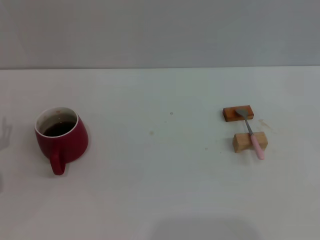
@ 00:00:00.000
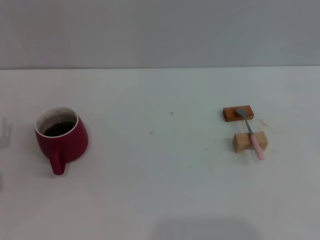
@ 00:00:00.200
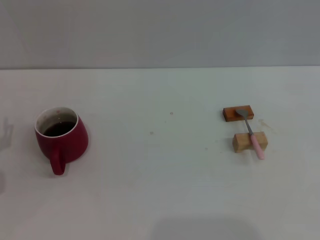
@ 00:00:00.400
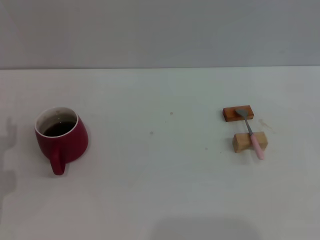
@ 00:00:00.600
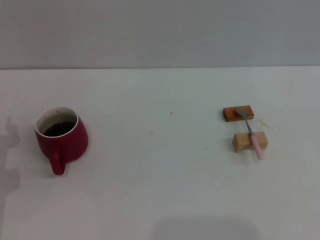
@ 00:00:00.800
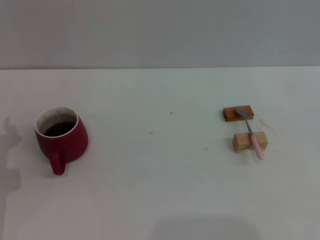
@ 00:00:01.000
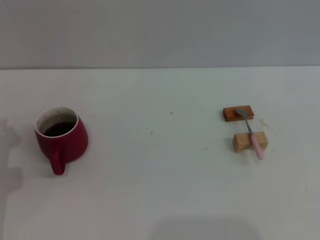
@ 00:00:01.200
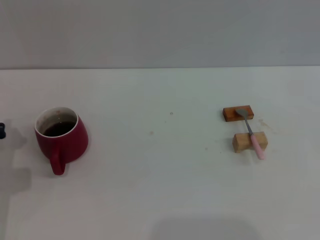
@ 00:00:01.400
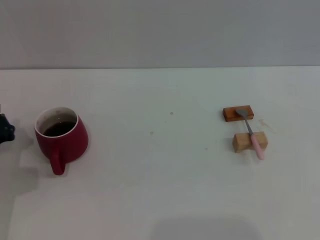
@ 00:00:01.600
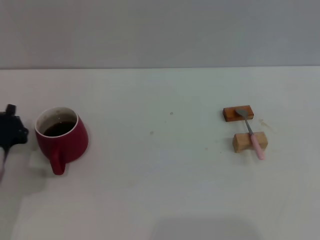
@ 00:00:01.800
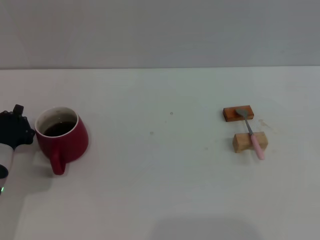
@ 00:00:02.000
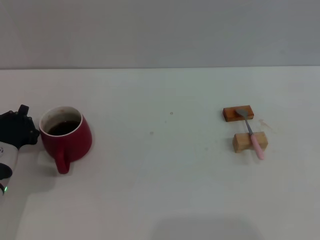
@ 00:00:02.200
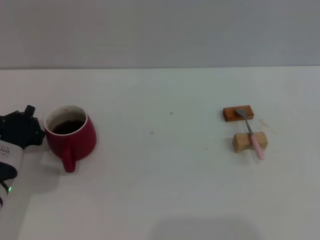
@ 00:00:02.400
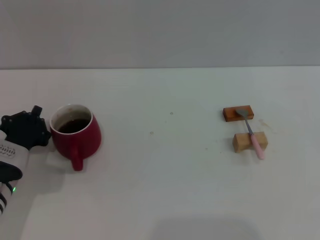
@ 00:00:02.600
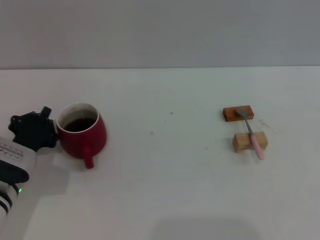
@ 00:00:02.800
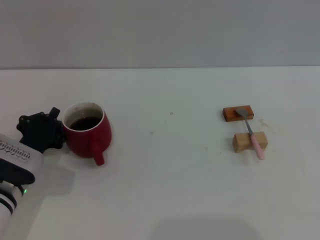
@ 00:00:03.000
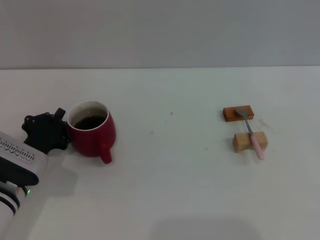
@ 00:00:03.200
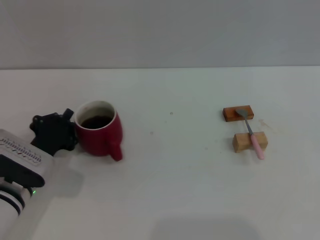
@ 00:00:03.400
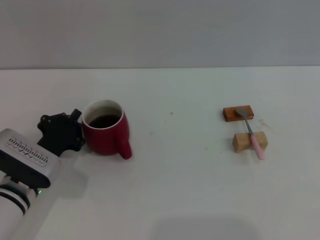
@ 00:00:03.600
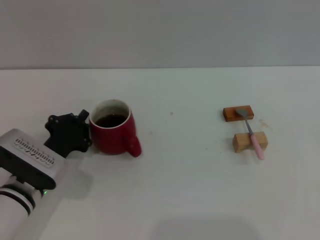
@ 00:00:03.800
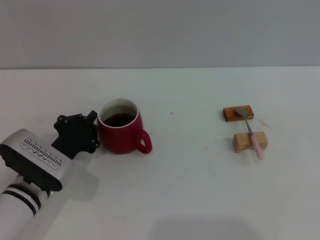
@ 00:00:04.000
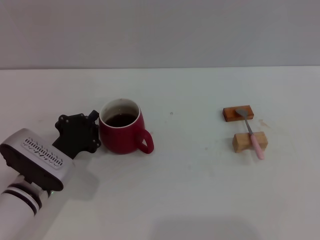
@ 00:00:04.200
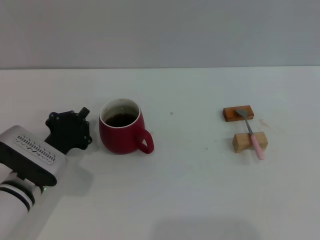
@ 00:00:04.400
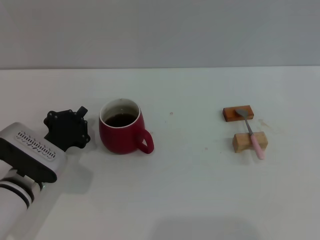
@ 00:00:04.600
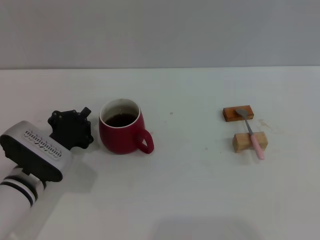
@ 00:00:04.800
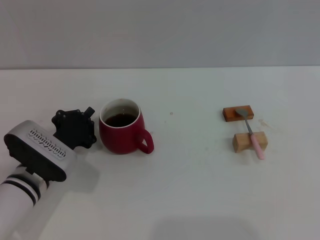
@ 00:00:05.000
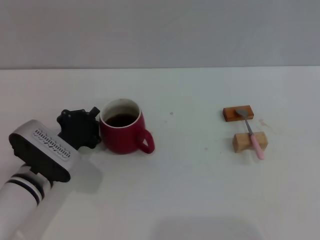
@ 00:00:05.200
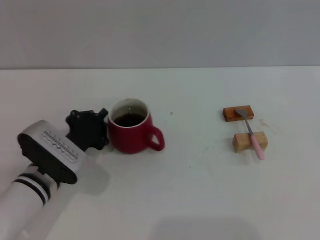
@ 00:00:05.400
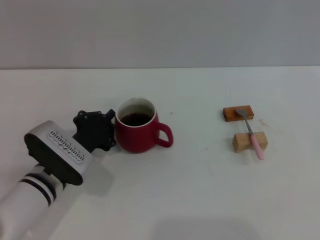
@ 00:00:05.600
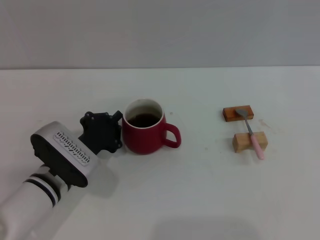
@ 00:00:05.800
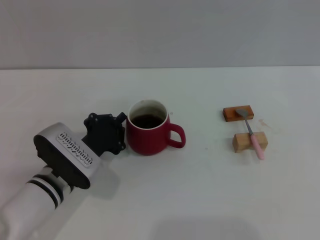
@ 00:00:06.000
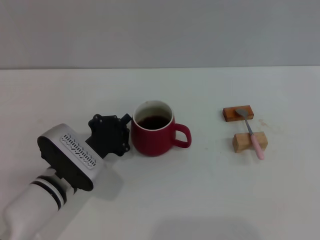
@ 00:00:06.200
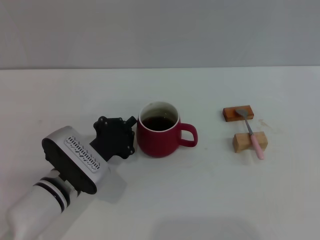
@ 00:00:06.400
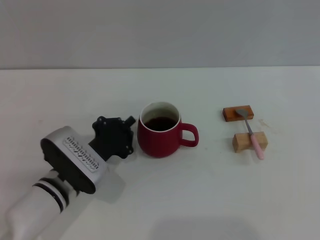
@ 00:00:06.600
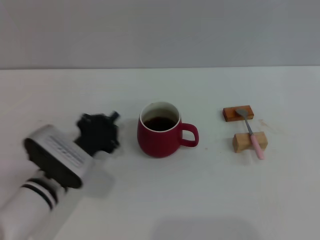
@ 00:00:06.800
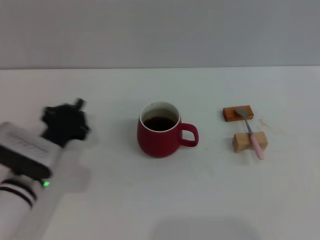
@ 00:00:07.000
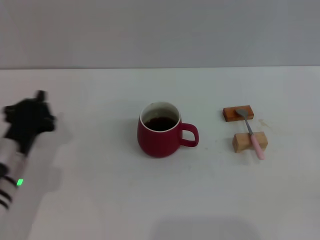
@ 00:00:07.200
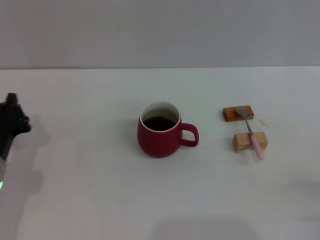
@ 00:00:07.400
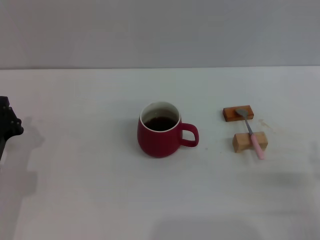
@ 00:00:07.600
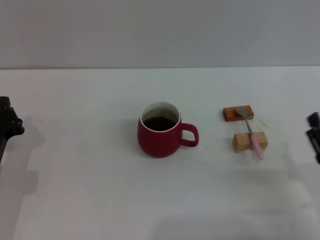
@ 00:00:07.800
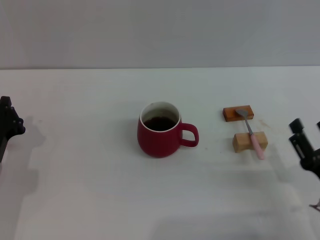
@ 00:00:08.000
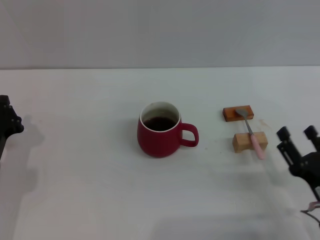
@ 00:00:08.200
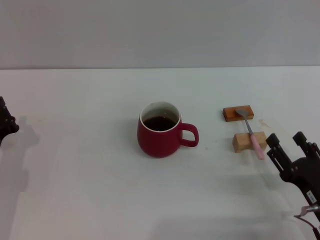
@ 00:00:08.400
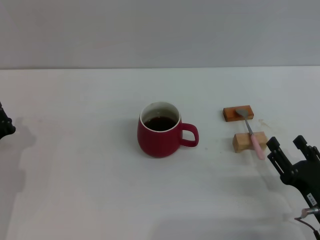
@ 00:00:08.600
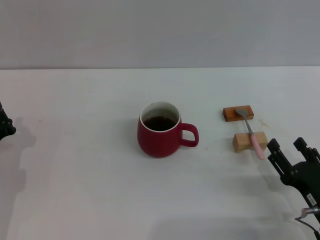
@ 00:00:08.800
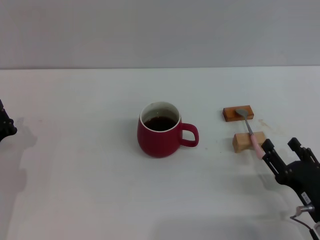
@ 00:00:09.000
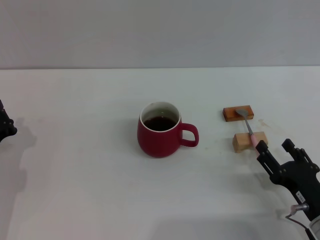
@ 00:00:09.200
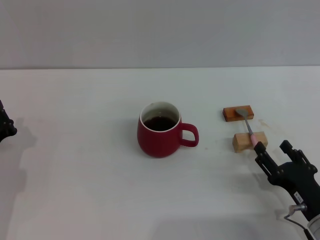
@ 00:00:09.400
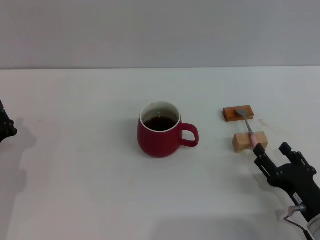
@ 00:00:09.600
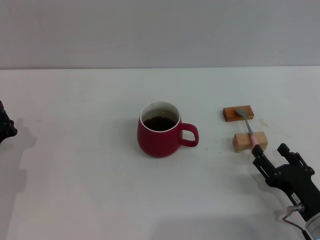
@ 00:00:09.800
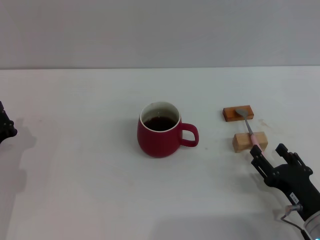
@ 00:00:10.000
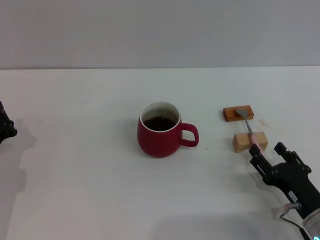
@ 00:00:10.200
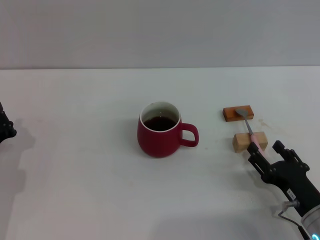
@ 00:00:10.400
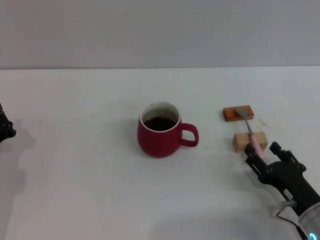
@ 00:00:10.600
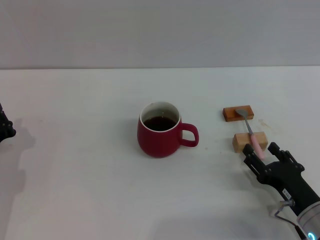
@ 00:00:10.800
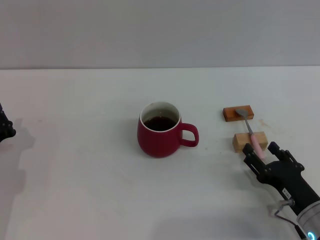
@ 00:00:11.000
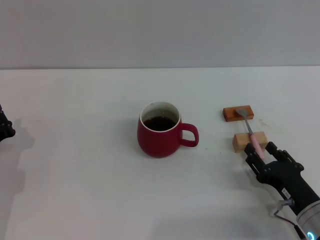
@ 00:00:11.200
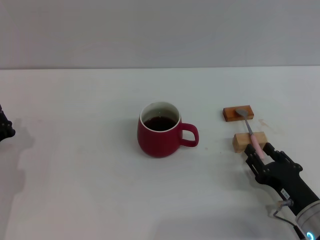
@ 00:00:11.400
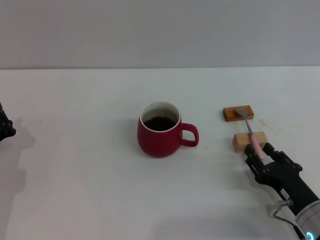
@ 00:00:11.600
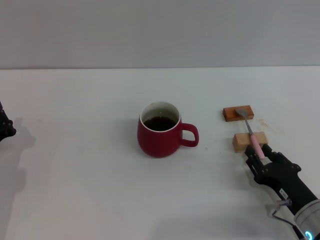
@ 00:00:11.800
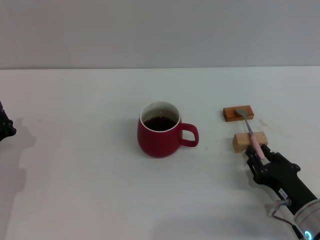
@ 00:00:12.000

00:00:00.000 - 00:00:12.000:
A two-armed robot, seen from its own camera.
Task of the whole recording: Move the red cup to the center, lift the pink spoon, stir it three times in the cup, and put the spoon into the cup.
Step, 00:00:00.000 - 00:00:06.600: Move the cup with coffee to the center of view with the left gripper.
00:00:03.000 - 00:00:04.400: The grippers move only a little.
00:00:04.400 - 00:00:06.000: The grippers stay close to where they were, moving slightly.
00:00:06.000 - 00:00:07.600: The grippers both shift to the left by roughly 10 cm.
00:00:07.600 - 00:00:09.000: The right gripper travels to the left by roughly 5 cm.
00:00:09.000 - 00:00:10.400: The grippers move only a little.
00:00:10.400 - 00:00:12.000: The right gripper closes its fingers.

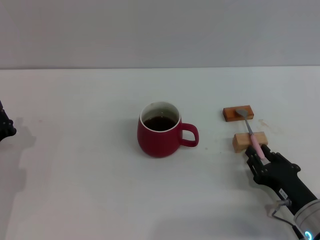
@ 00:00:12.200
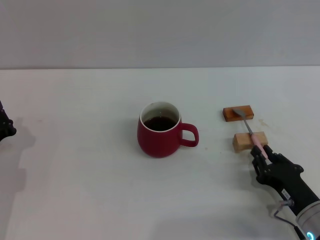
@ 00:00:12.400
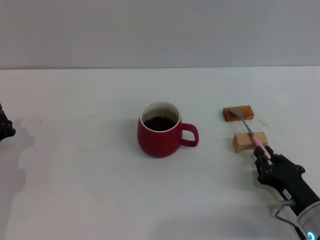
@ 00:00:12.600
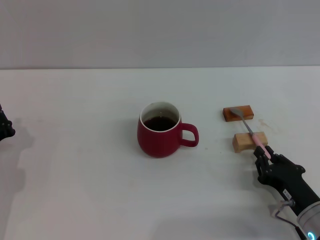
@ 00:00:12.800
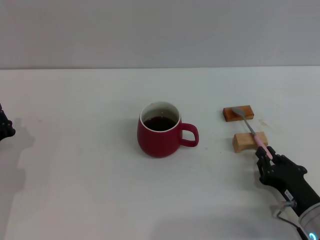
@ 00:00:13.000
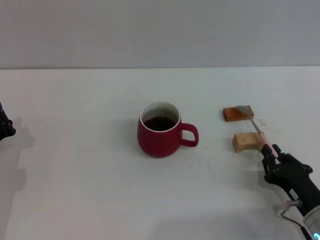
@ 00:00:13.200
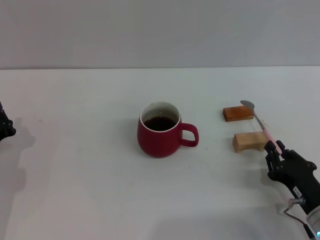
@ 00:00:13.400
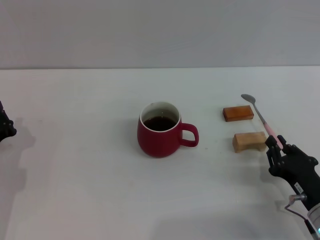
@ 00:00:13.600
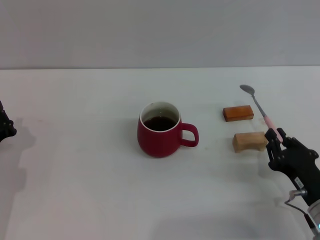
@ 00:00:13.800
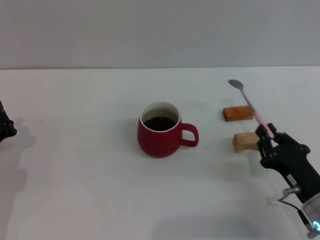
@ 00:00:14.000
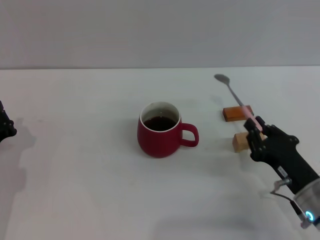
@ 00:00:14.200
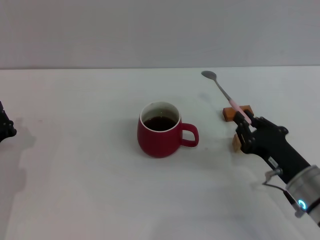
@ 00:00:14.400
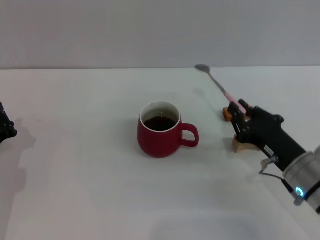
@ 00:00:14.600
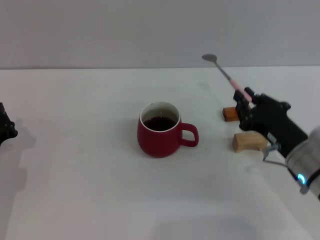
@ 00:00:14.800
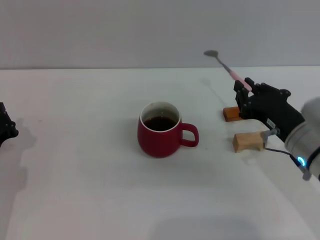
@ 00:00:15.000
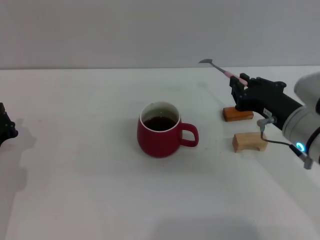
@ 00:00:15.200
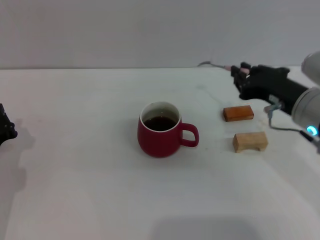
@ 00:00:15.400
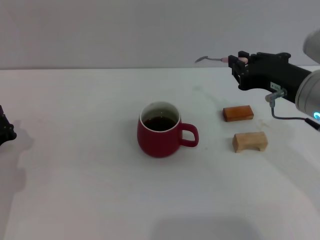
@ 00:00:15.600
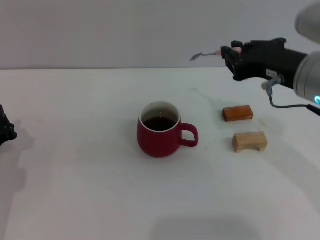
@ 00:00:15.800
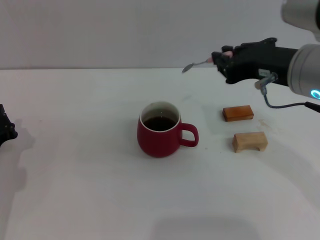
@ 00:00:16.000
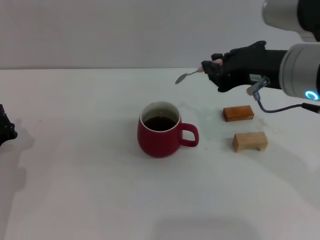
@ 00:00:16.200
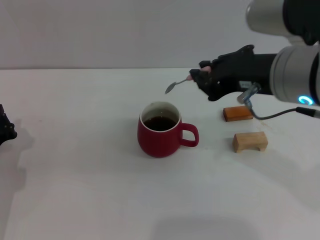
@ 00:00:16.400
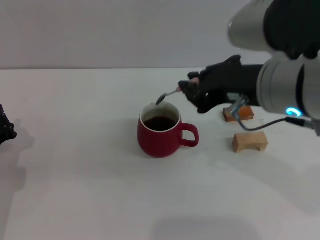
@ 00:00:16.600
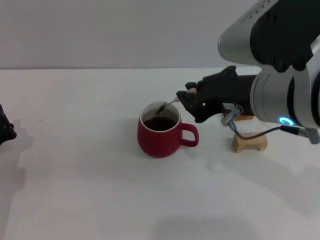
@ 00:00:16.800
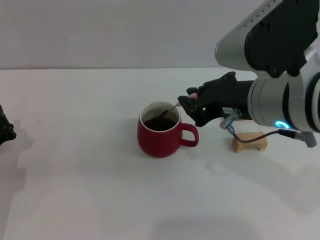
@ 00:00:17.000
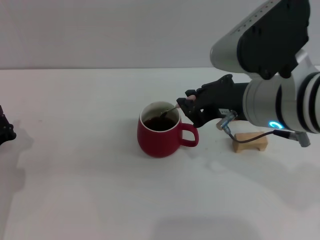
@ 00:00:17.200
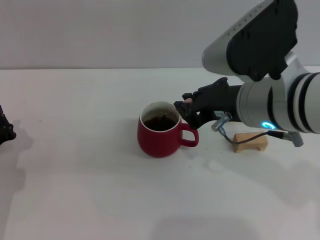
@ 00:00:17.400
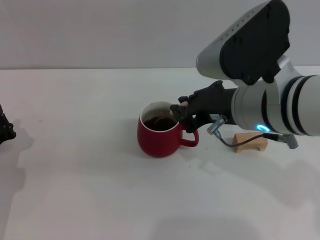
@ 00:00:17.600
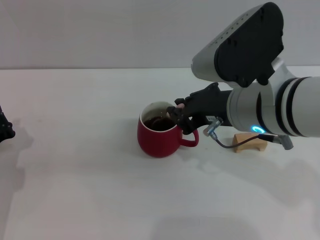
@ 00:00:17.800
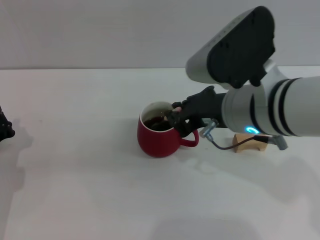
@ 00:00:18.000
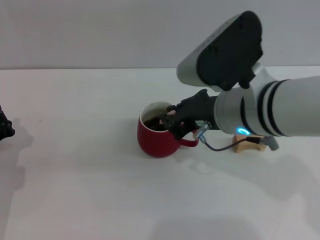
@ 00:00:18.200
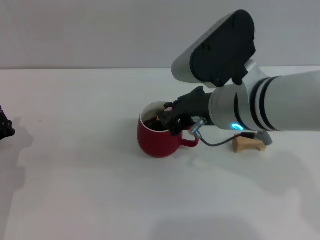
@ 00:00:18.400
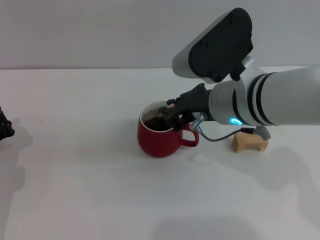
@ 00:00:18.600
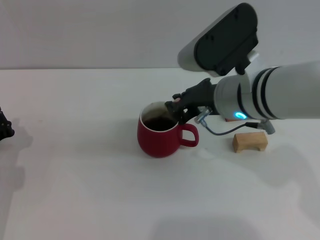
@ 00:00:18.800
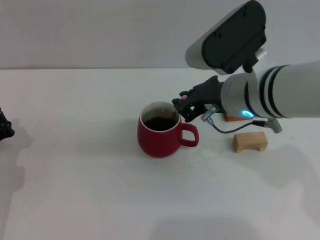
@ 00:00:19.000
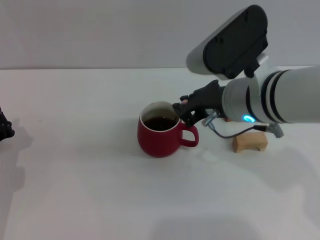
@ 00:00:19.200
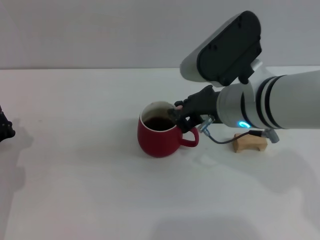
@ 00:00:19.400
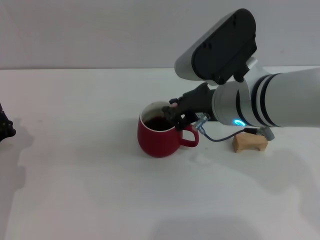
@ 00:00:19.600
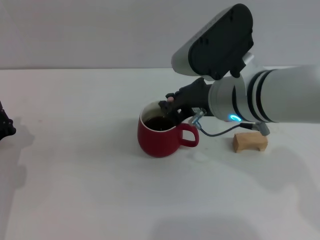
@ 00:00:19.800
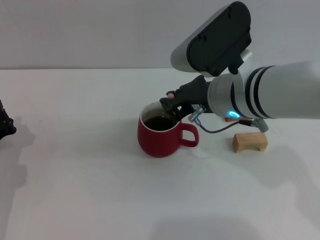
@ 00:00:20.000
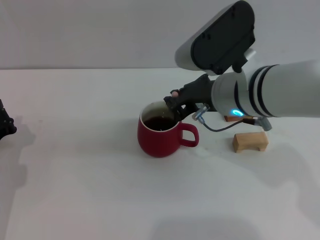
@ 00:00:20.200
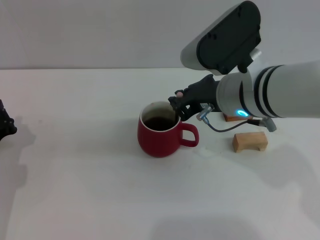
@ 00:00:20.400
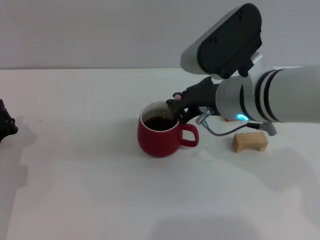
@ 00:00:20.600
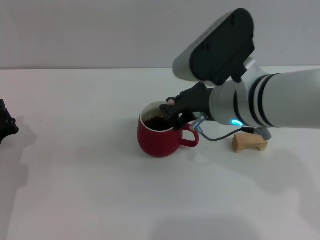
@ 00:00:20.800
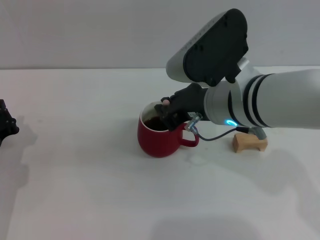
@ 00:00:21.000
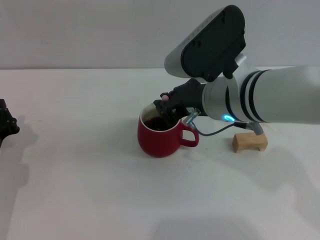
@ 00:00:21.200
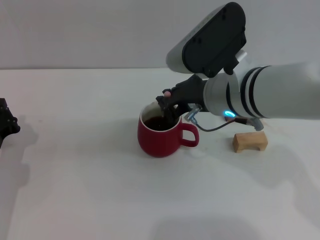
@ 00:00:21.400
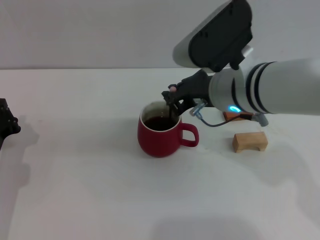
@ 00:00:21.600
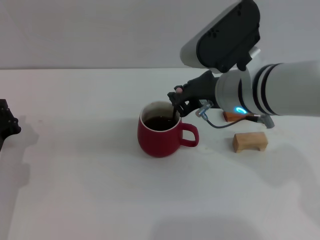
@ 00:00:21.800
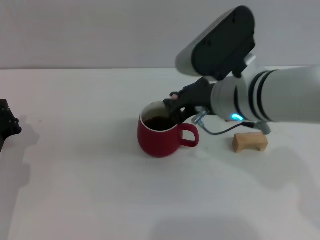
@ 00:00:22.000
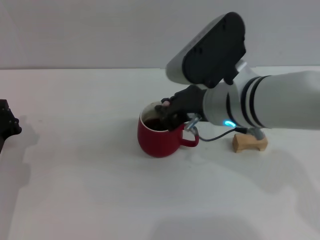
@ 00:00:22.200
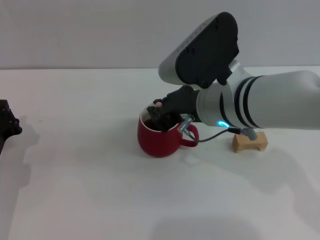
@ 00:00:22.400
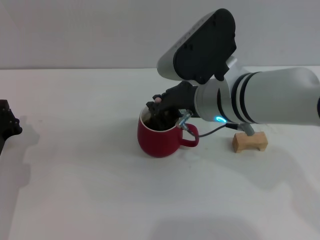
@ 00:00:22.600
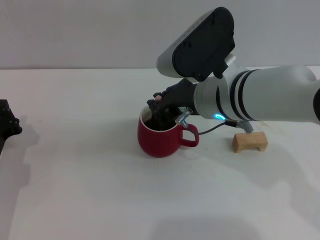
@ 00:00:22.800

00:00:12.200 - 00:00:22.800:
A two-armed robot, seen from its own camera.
Task of the whole recording: Move the red cup to the center, lift the pink spoon, stir it three times in the cup, and put the spoon into the cup.
00:00:12.200 - 00:00:13.800: The right gripper closes.
00:00:13.800 - 00:00:15.200: The right gripper moves upward and forward, about 15 cm.
00:00:15.200 - 00:00:16.800: The right gripper goes about 15 cm upward and to the left.
00:00:16.800 - 00:00:18.200: The right gripper moves about 5 cm.
00:00:18.200 - 00:00:19.800: The grippers stay close to where they were, moving slightly.
00:00:19.800 - 00:00:21.200: The two grippers keep their place.
00:00:21.200 - 00:00:22.800: The grippers stay close to where they were, moving slightly.
